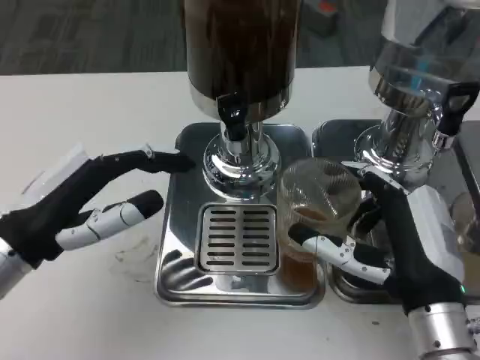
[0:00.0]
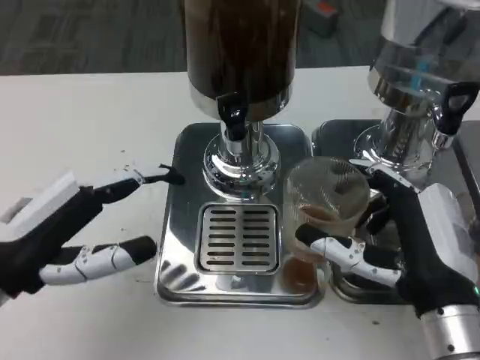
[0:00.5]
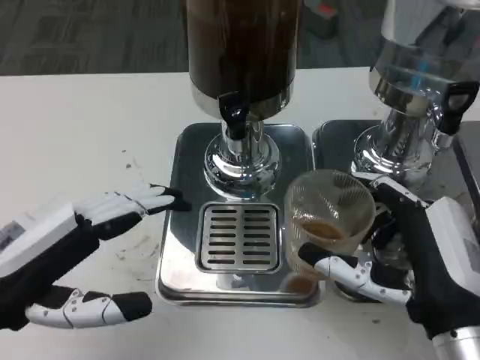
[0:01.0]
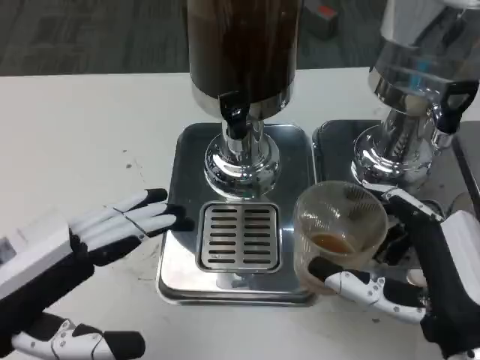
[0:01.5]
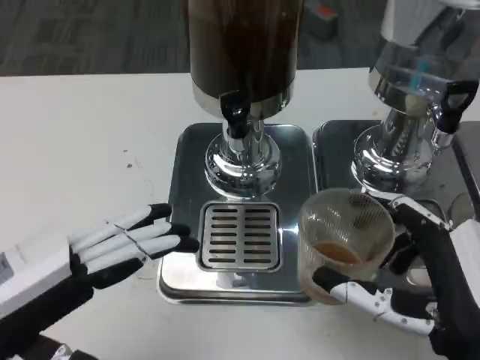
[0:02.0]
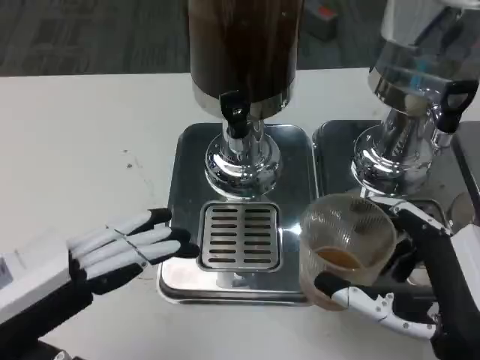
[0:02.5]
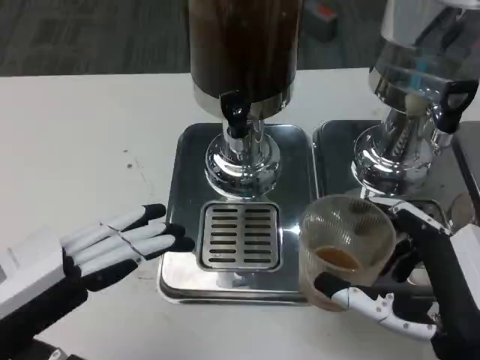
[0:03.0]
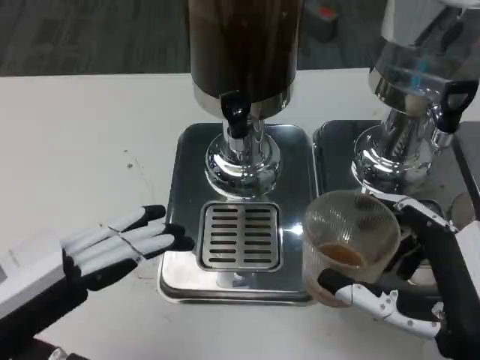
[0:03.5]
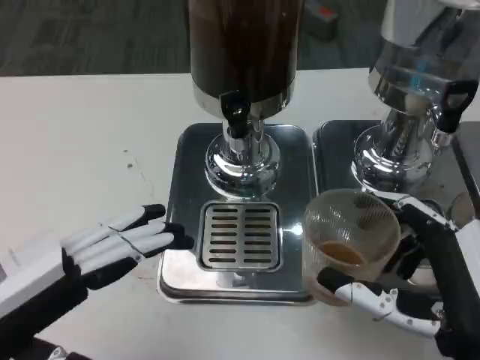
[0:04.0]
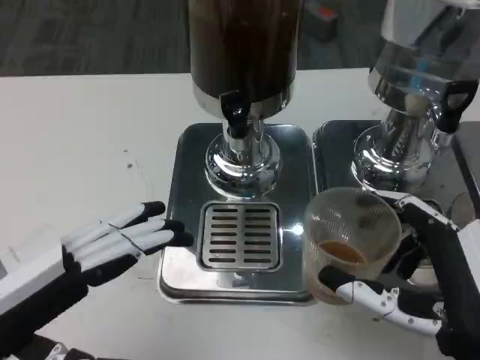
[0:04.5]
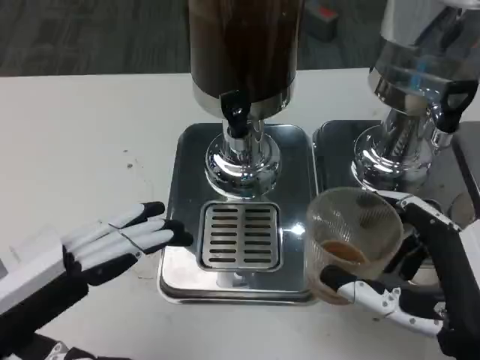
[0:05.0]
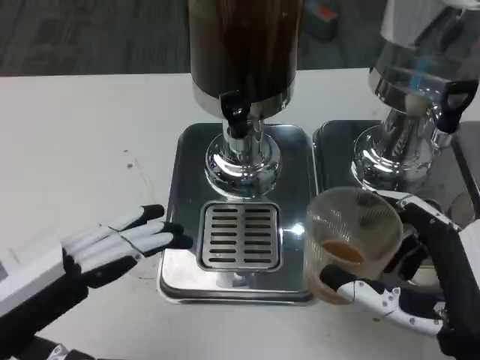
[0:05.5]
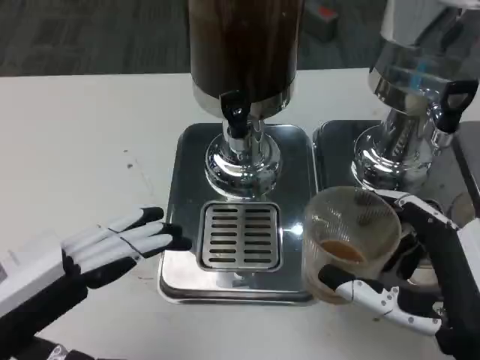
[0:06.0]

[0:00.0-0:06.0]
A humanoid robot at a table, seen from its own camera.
Task of the whole recording: Grasp the cup under the faucet to collect the drink, then remove the cup.
0:00.0 to 0:02.0: Both hands move backward, roughly 5 cm.
0:02.0 to 0:06.0: Both hands stay put.

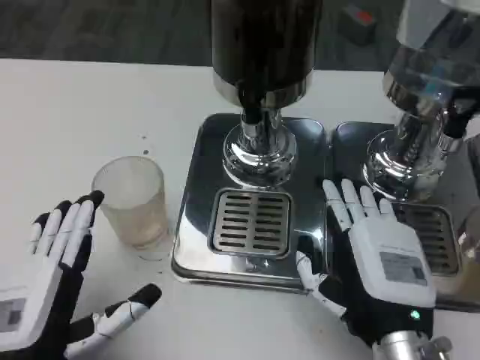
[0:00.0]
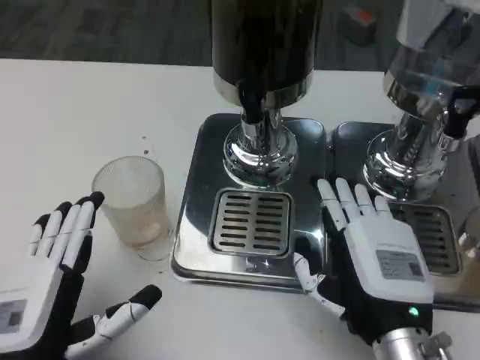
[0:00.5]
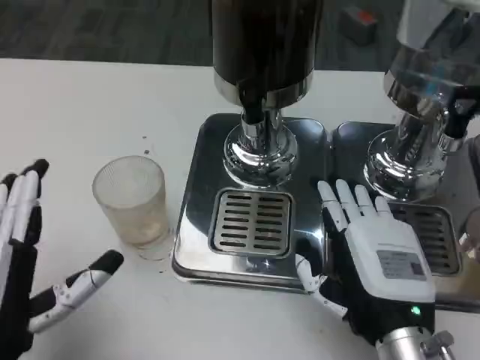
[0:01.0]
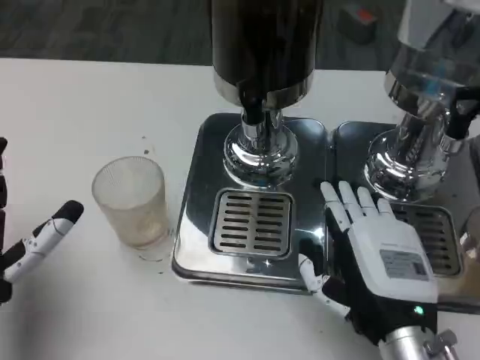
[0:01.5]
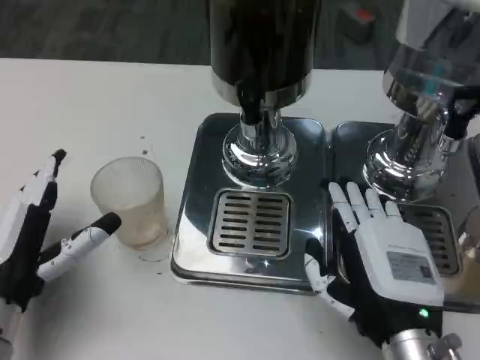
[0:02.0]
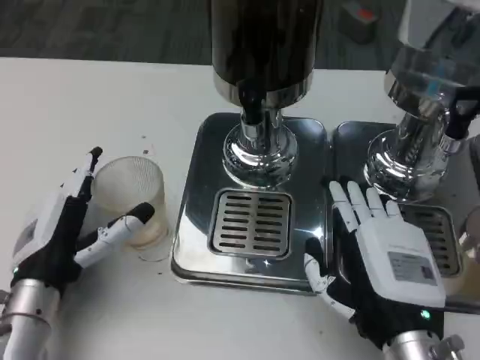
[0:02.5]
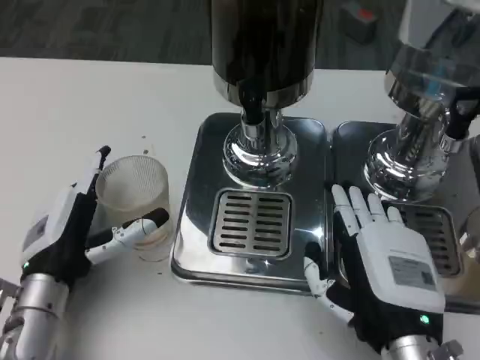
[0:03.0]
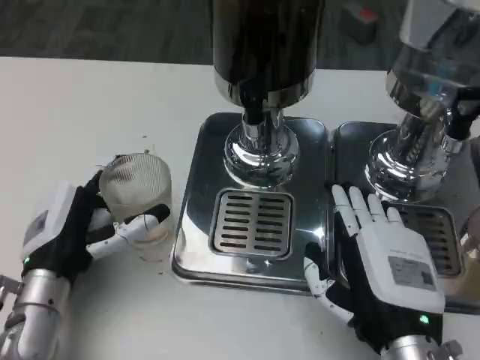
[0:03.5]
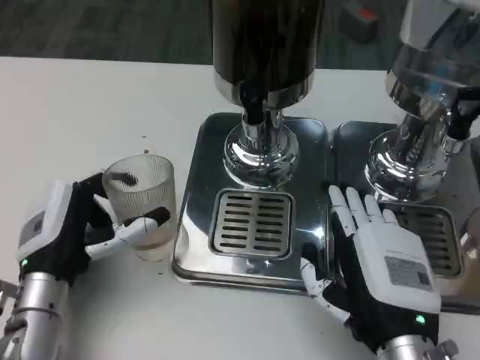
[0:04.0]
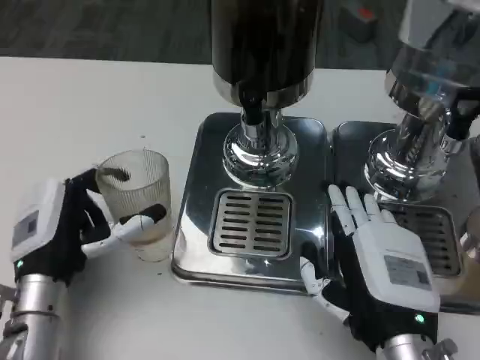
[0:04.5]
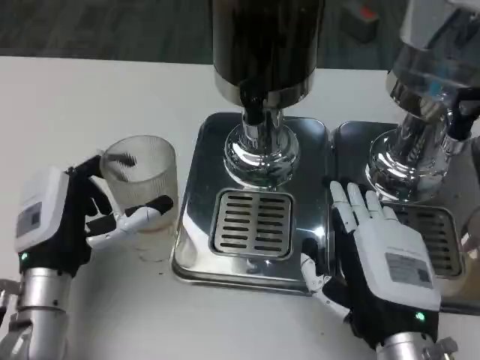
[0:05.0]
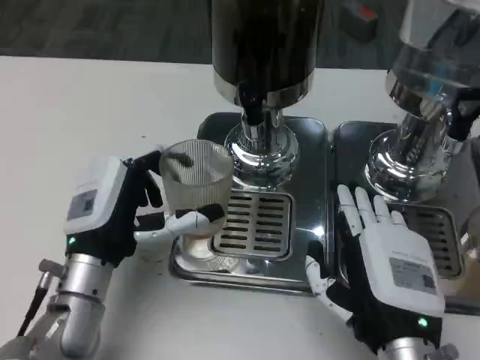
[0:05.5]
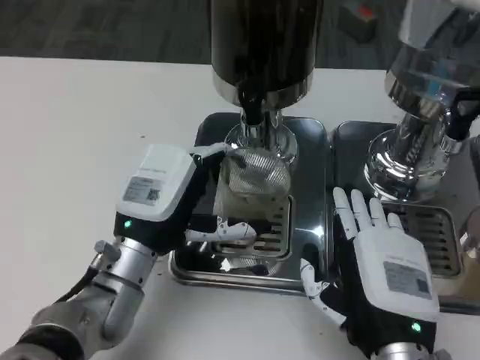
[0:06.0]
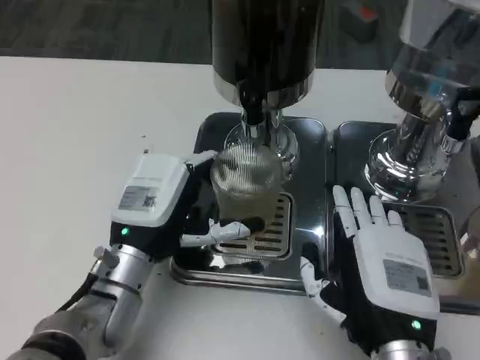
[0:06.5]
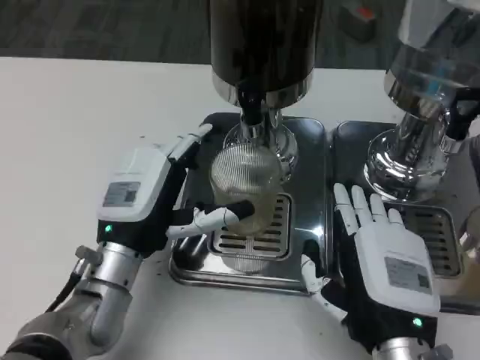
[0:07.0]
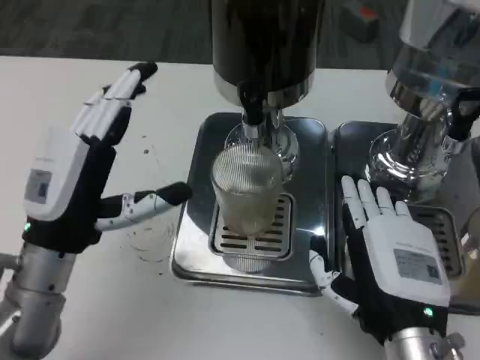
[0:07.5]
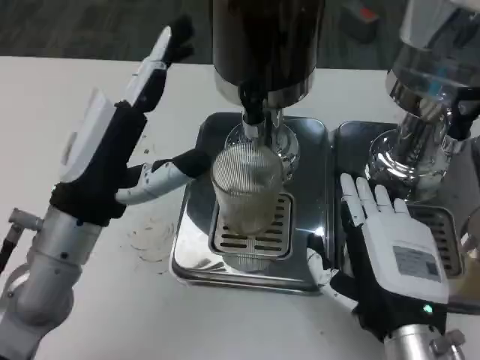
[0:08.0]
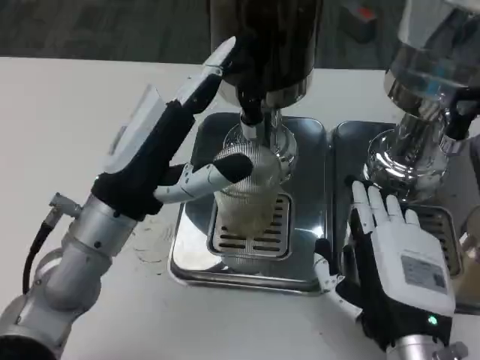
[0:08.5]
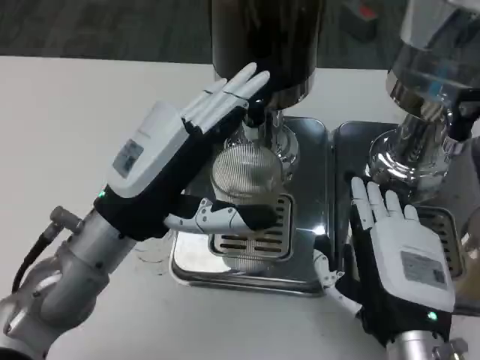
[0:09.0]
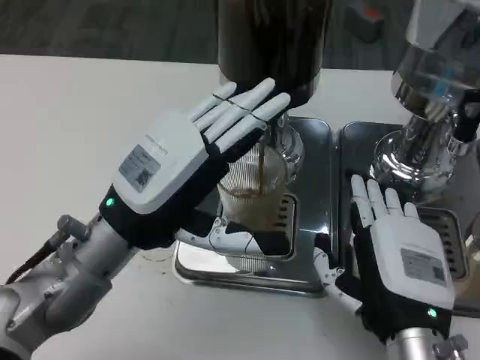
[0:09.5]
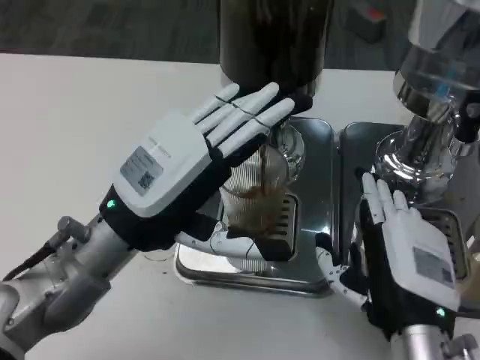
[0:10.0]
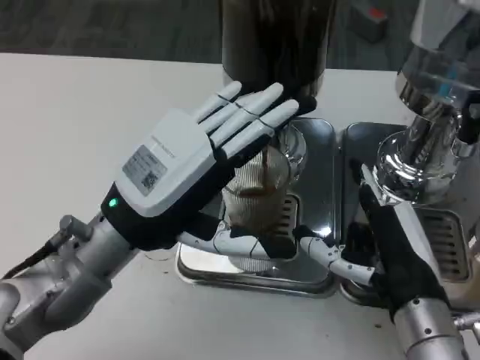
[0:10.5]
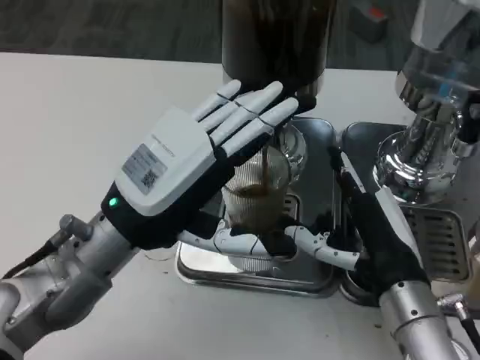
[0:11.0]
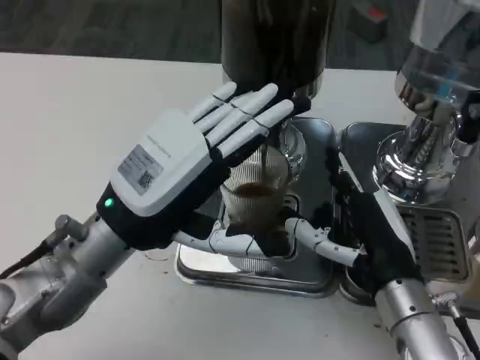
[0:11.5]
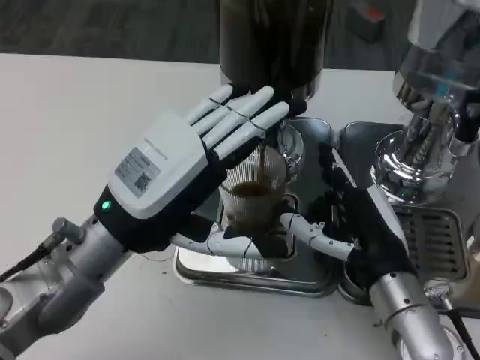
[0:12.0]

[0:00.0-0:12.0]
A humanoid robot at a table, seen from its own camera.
Task of the whole recording: Grasp the cup under the faucet to collect the drink, then remove the cup.
0:00.0 to 0:02.0: The left hand moves forward, approximately 10 cm.
0:04.0 to 0:06.0: The left hand heads to the right, covering roughly 5 cm.
0:06.0 to 0:08.0: The left hand is displaced upward by some 5 cm.
0:10.0 to 0:12.0: The right hand is displaced forward by about 5 cm.

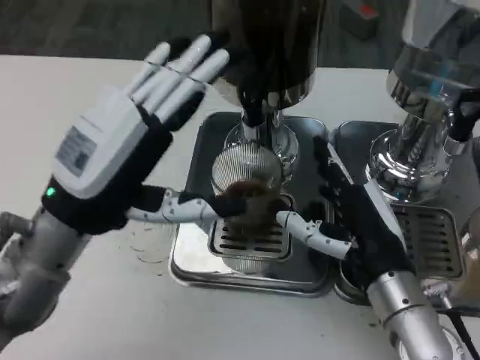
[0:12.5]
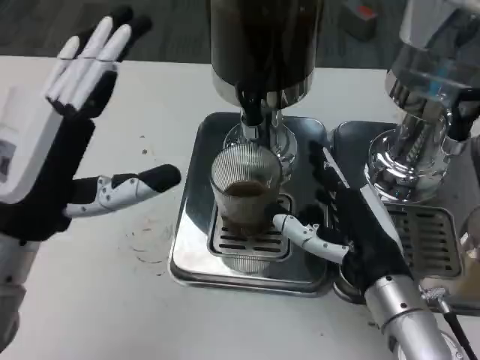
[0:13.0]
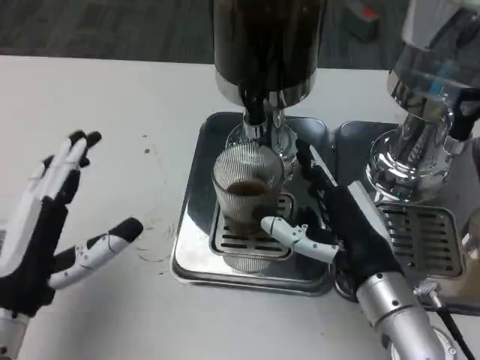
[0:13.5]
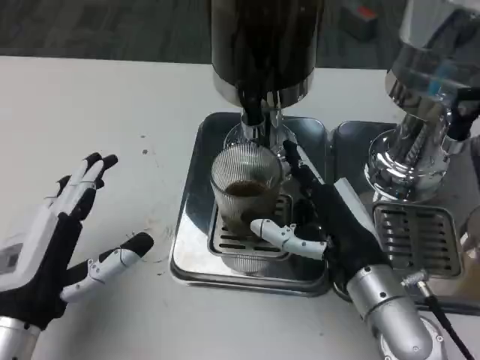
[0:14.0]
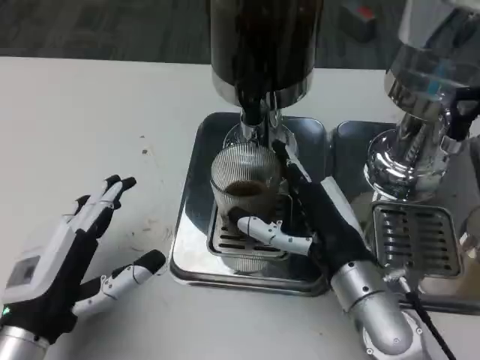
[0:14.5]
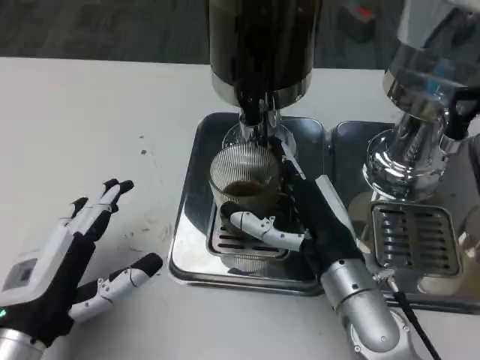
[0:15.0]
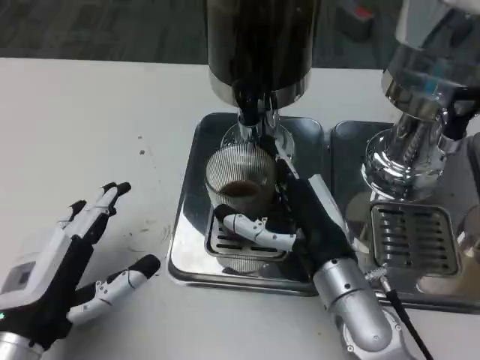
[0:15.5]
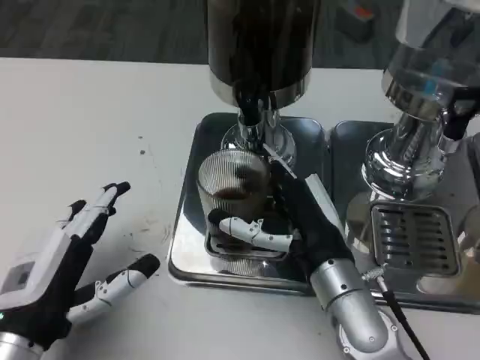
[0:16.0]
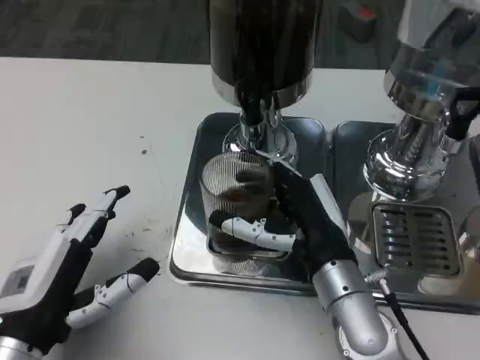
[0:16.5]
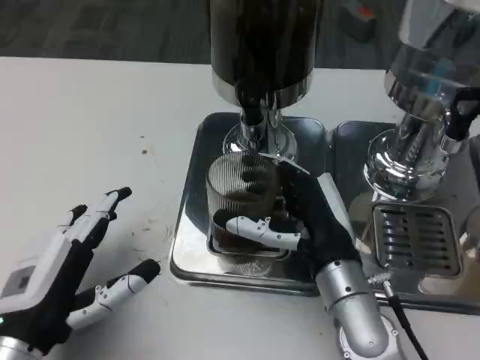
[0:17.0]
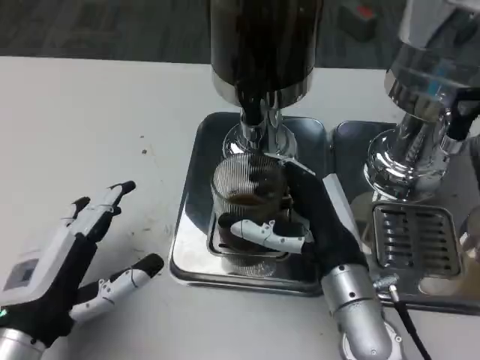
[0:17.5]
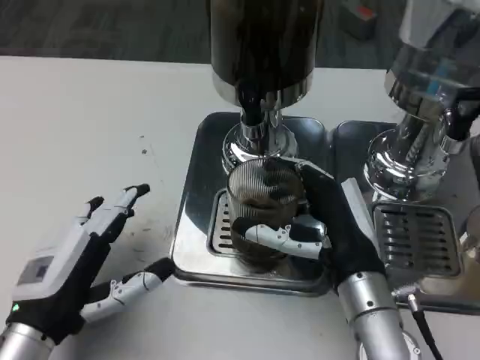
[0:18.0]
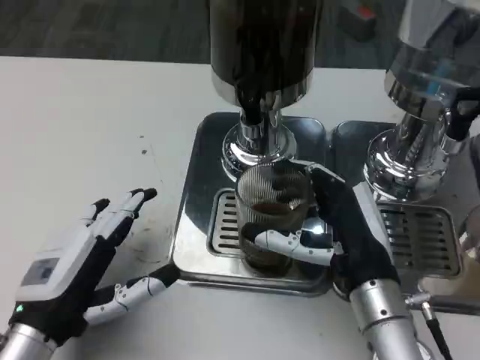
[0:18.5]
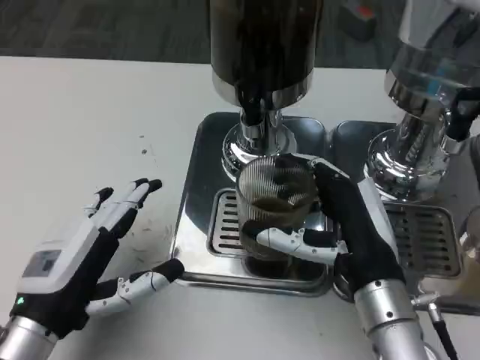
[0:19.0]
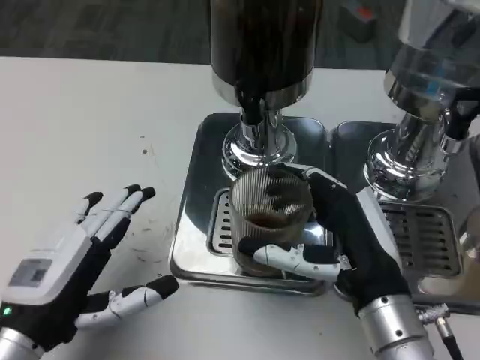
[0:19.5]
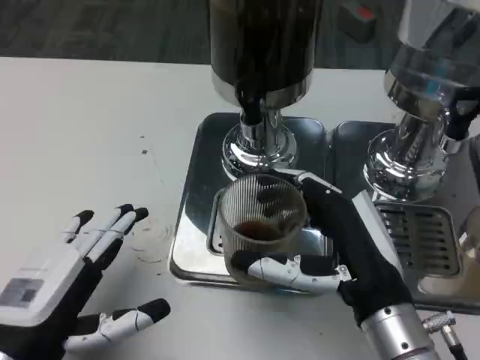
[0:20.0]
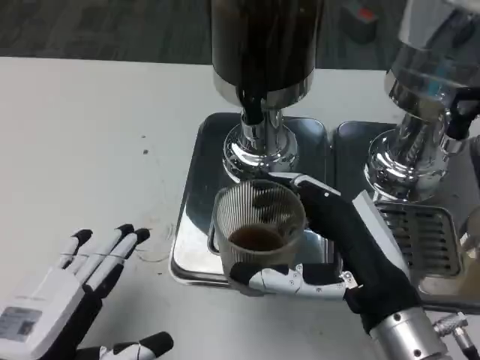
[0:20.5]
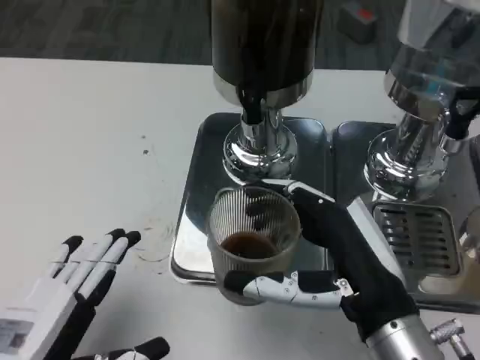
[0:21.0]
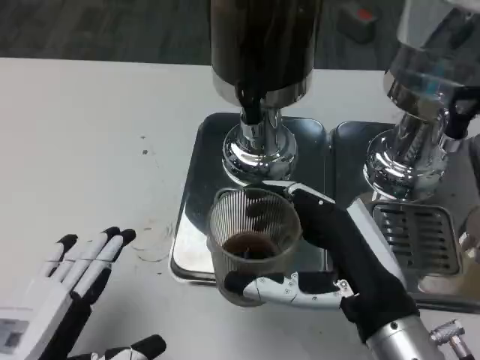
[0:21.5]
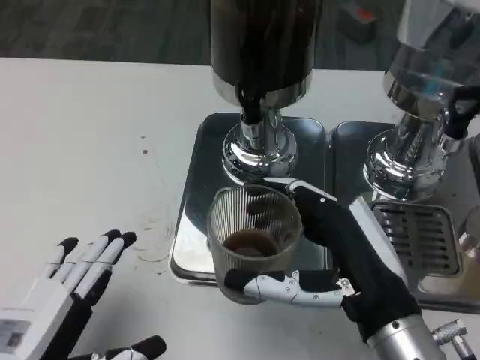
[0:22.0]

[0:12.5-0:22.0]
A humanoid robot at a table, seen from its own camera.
Task of the whole recording: Grasp the cup under the faucet to collect the drink, then remove the cup.
0:12.5 to 0:14.5: The left hand heads downward and backward, covering about 10 cm.
0:14.5 to 0:18.0: The hands make only small movements.
0:18.0 to 0:20.0: The right hand shifts by about 5 cm.
0:20.0 to 0:22.0: The hands move only a little.
